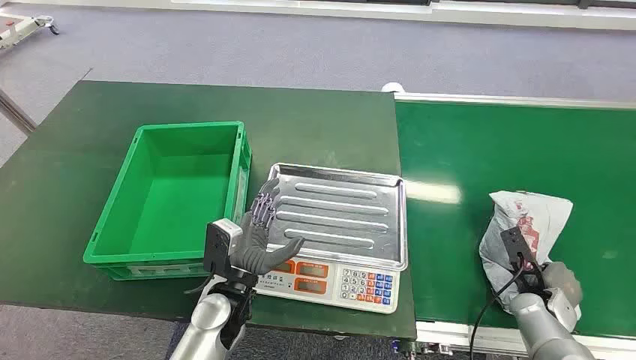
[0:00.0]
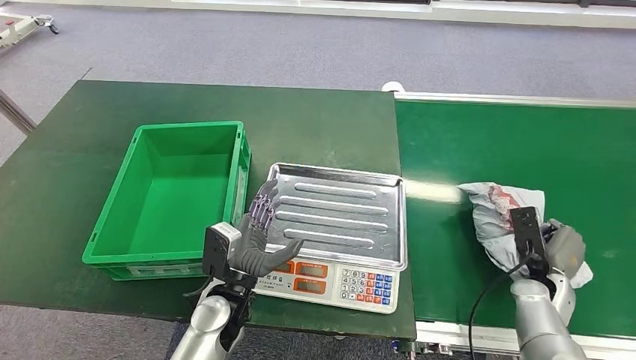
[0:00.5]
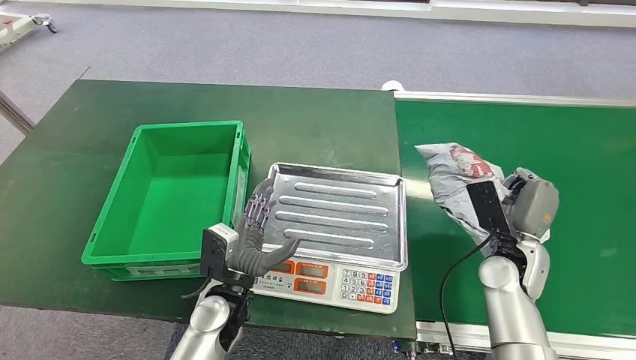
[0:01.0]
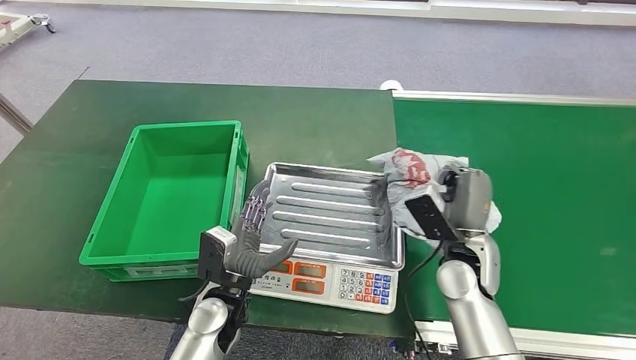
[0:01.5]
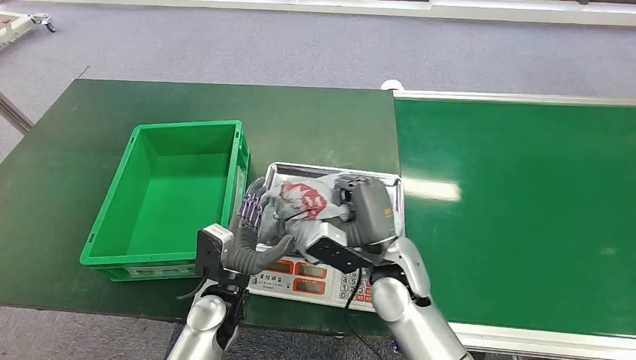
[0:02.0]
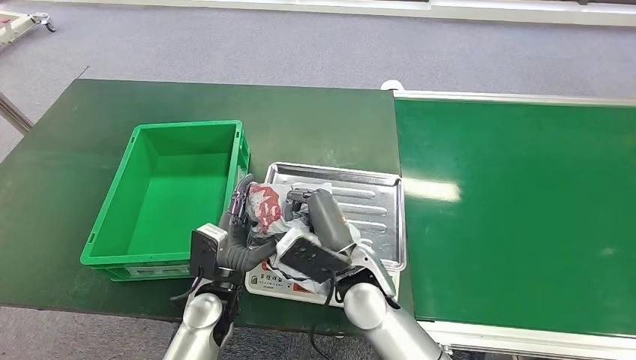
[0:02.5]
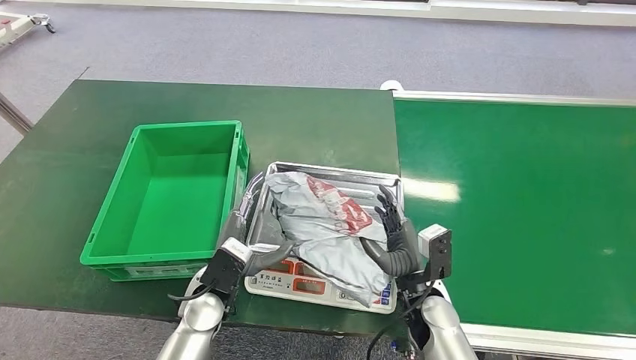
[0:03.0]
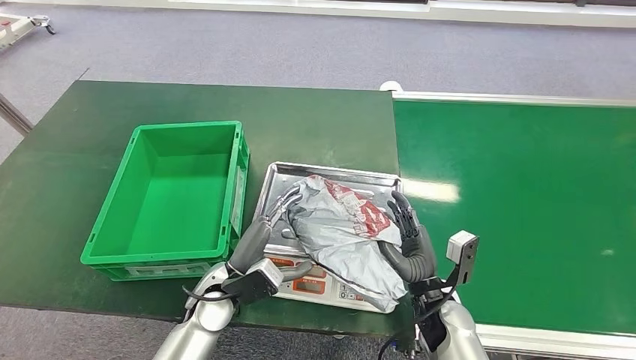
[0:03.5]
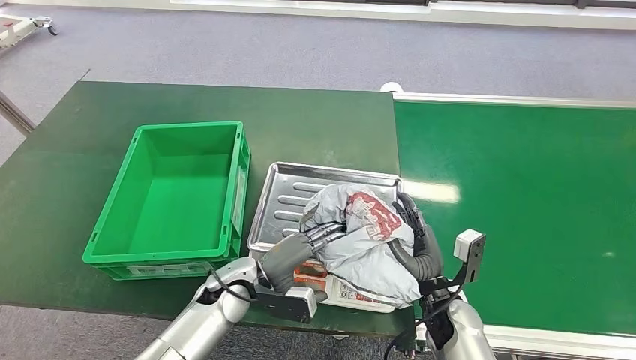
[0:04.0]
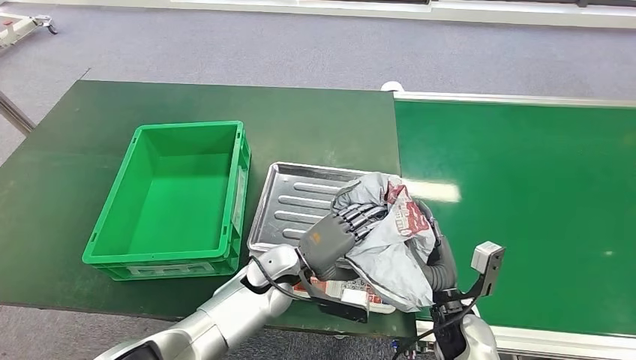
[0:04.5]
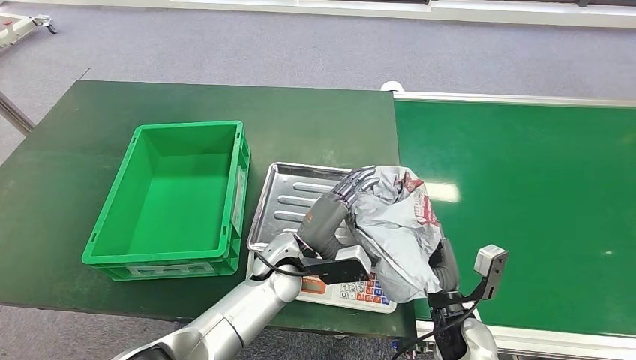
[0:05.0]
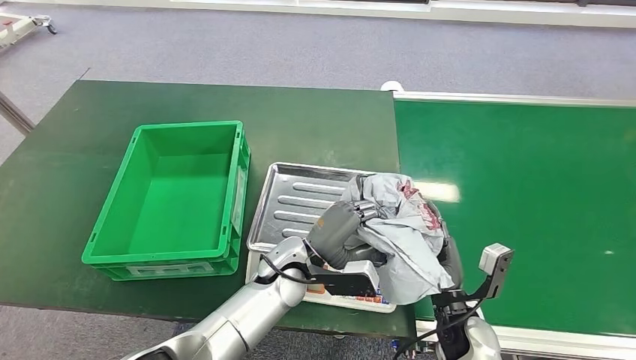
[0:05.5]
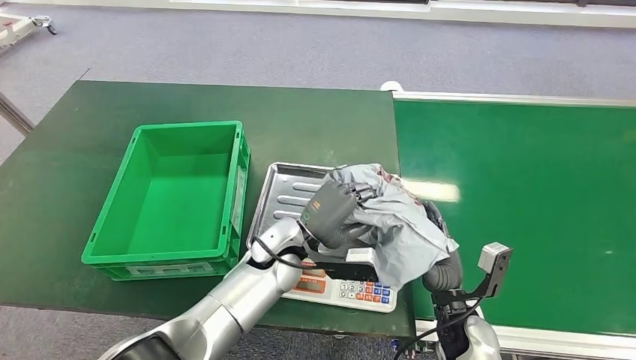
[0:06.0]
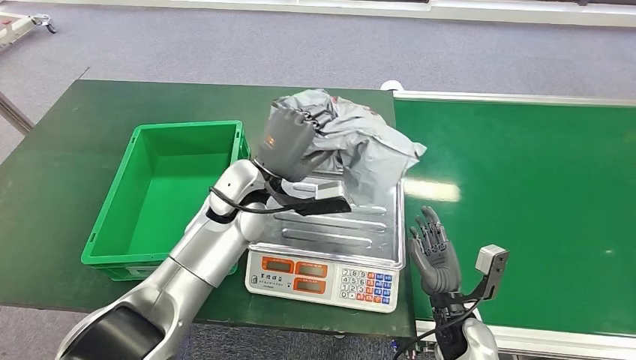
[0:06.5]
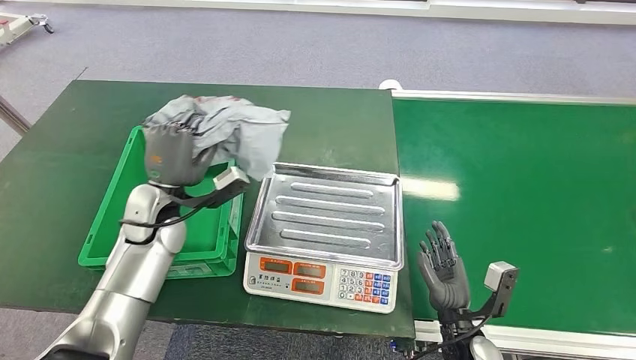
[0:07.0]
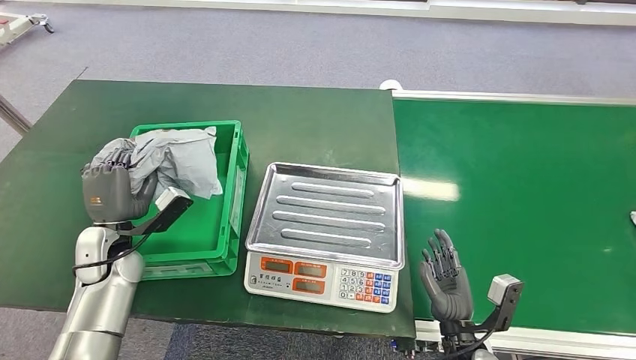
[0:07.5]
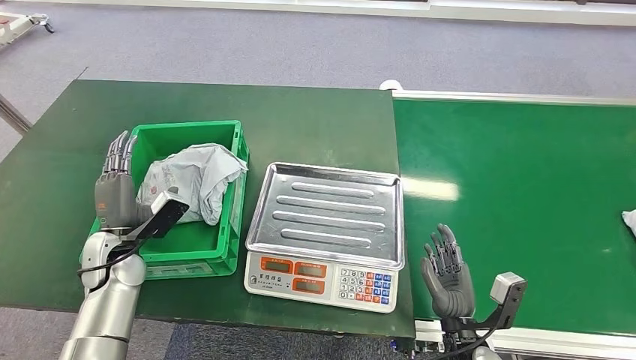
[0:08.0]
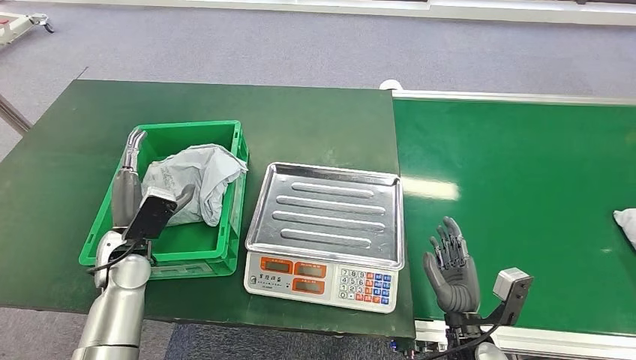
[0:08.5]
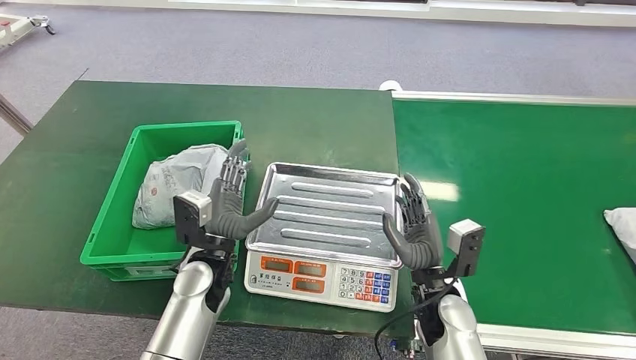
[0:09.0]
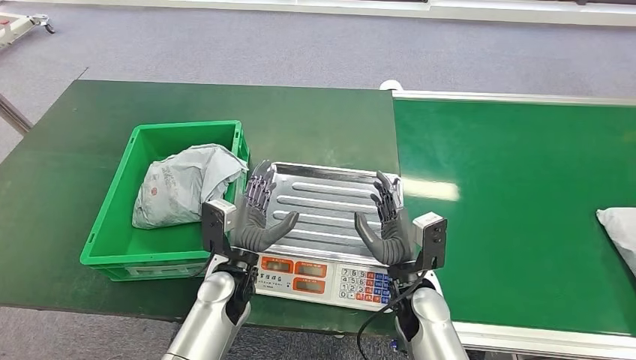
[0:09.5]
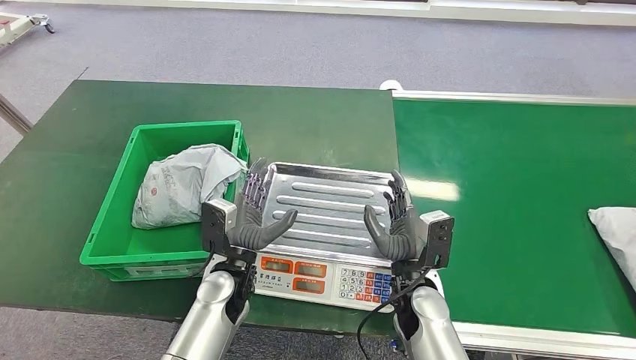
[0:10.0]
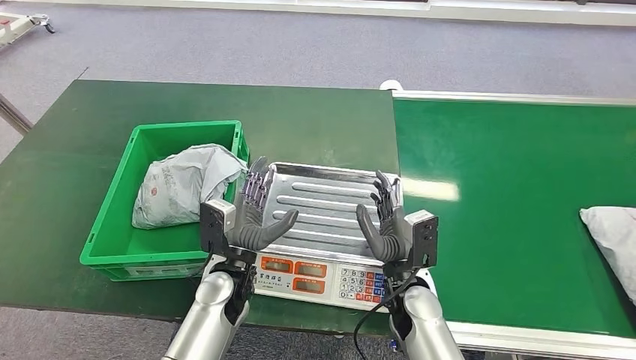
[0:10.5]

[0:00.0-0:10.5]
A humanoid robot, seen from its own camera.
Step, 0:00.0 to 0:01.0: Pick up the package from the conveyor belt.
Step, 0:01.5 to 0:03.0: Place the package onto the inbound machine.
Step, 0:03.5 to 0:07.0: Pick up the package from the inbound machine.
Step, 0:07.5 to 0:10.0: Place the package into the parcel locker.
0:08.5 to 0:10.5: The right hand goes some 15 cm to the left, forward and upward; the left hand goes roughly 20 cm to the right.

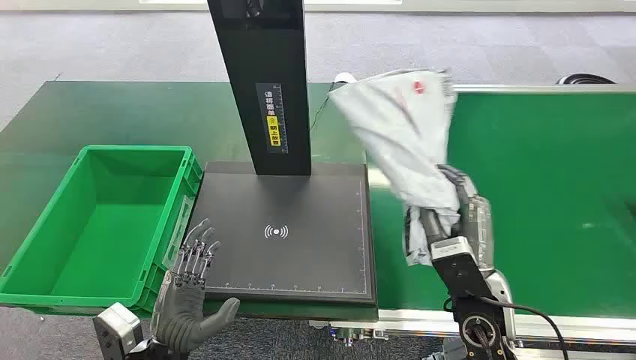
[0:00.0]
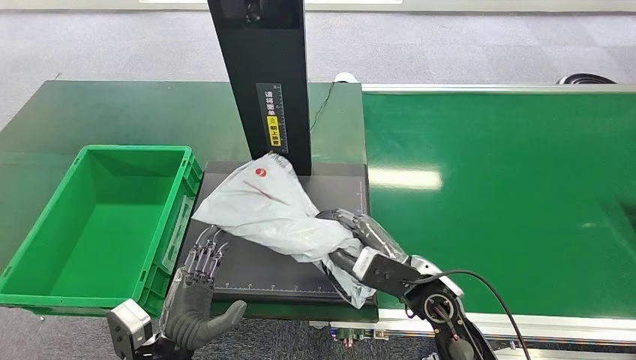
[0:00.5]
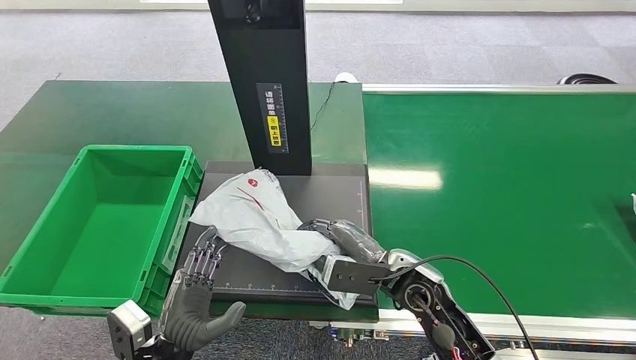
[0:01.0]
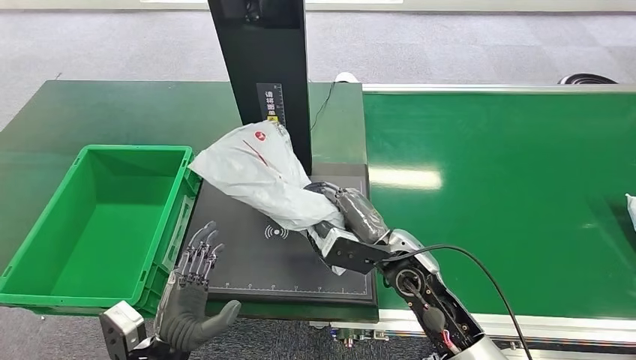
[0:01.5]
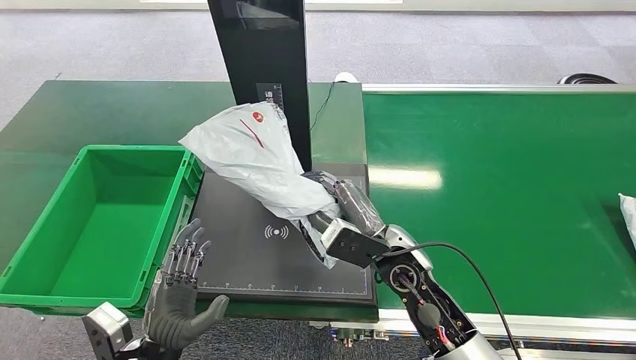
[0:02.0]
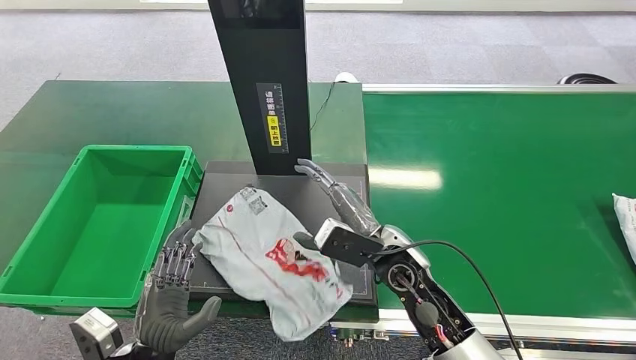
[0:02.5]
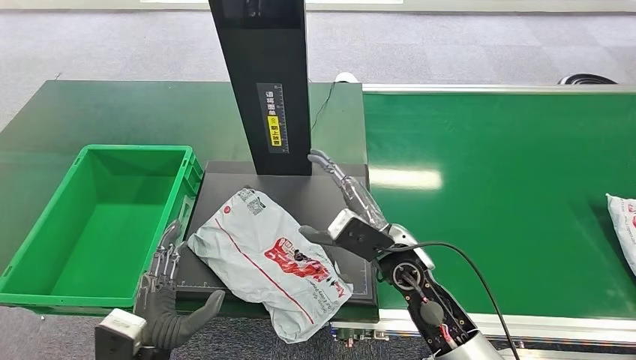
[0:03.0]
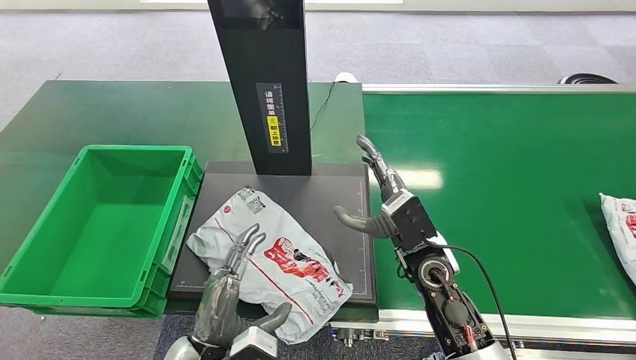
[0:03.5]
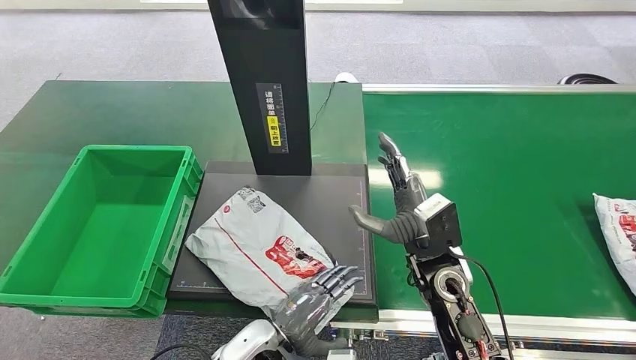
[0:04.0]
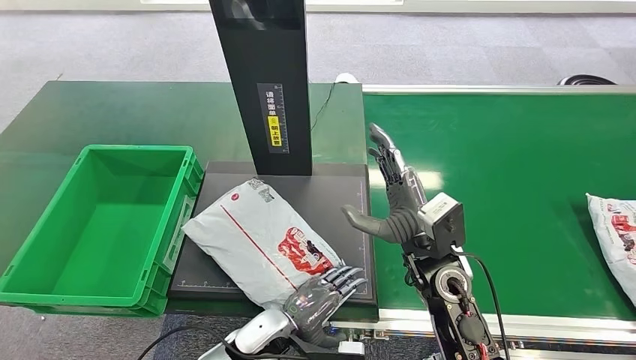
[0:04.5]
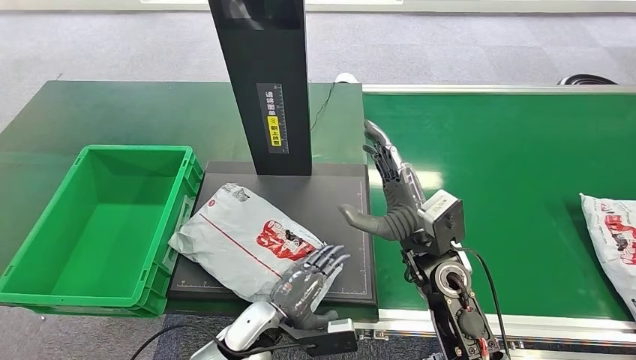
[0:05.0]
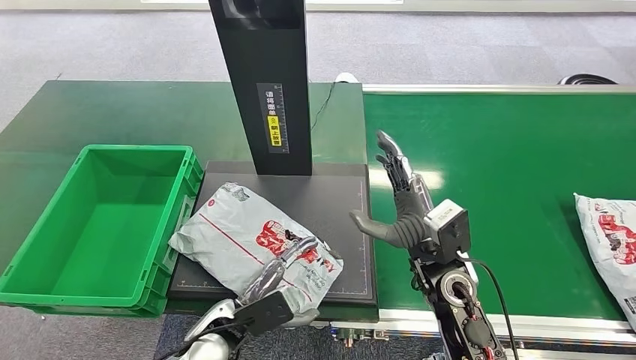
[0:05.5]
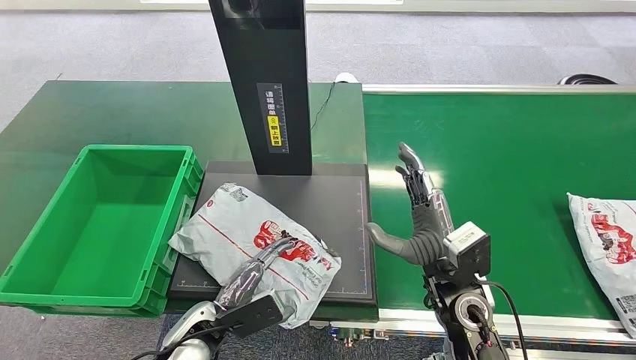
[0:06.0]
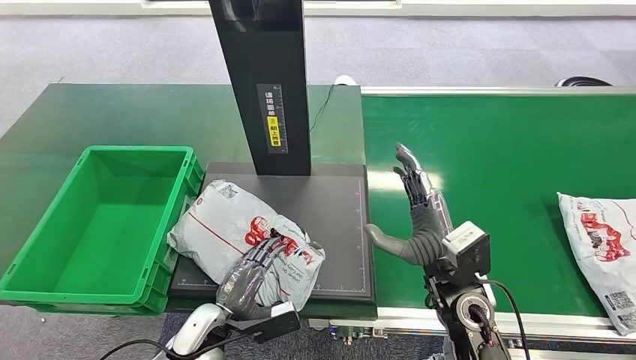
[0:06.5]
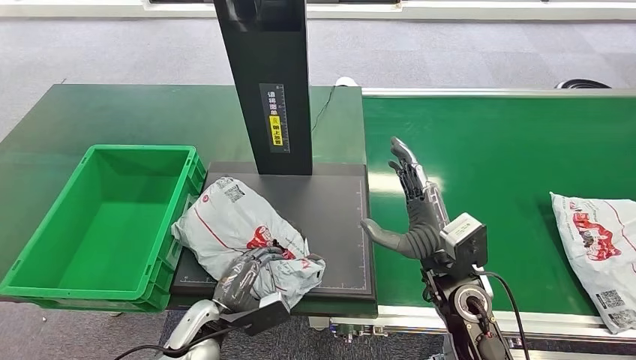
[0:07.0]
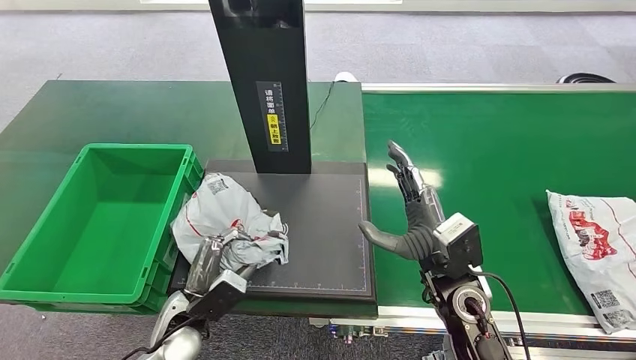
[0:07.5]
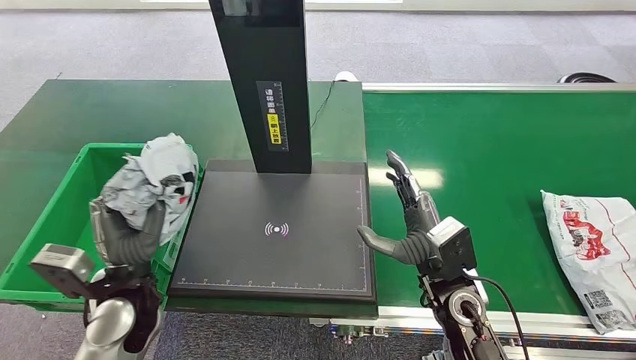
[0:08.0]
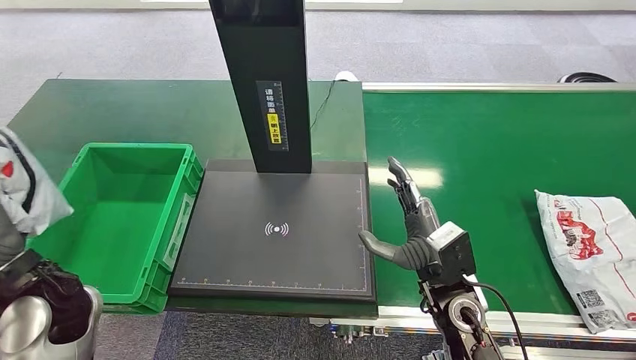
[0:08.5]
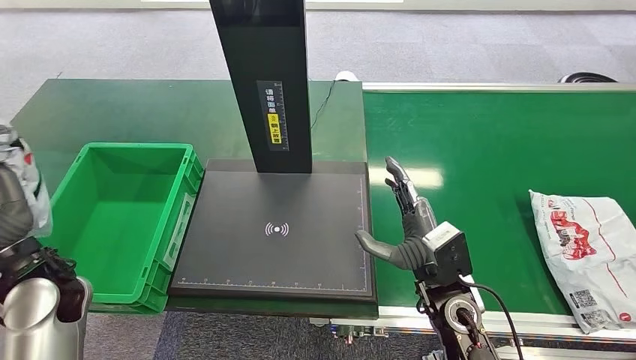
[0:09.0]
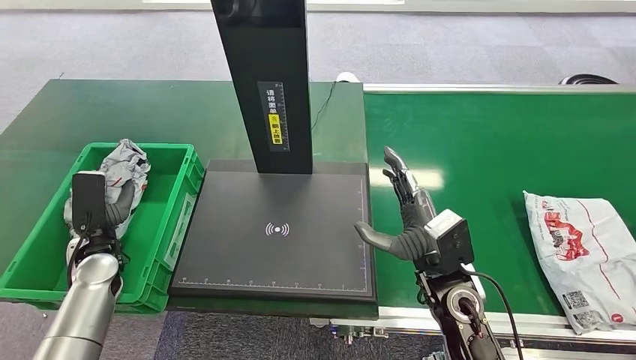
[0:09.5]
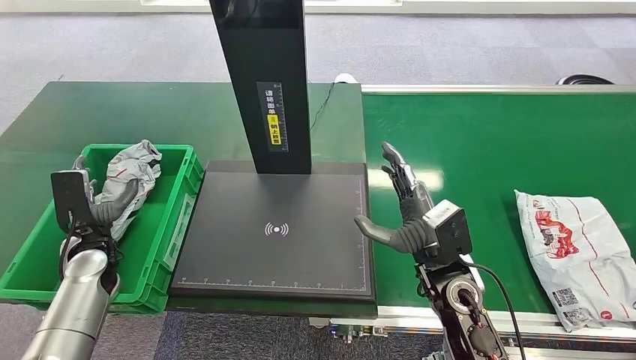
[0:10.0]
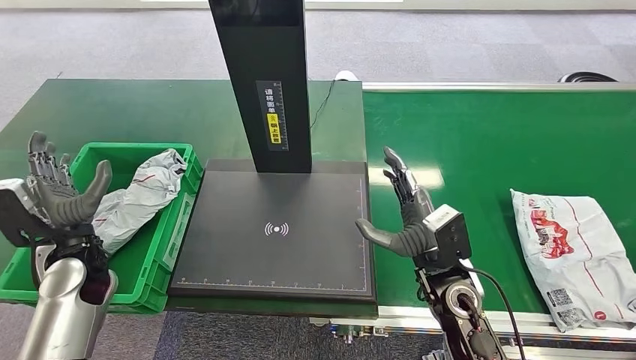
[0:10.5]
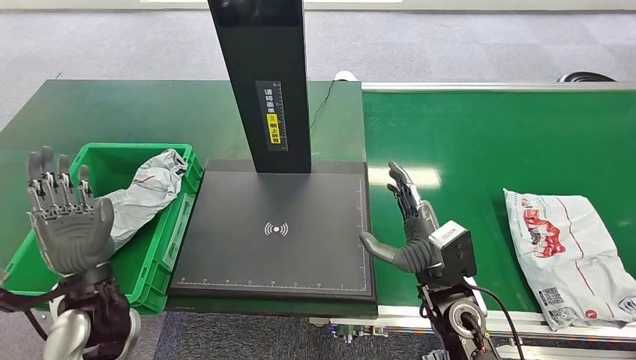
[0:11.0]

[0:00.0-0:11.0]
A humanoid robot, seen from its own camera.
0:03.5 to 0:05.5: The left hand is displaced forward by roughly 5 cm.
0:09.0 to 0:11.0: The left hand shifts some 10 cm to the right.
